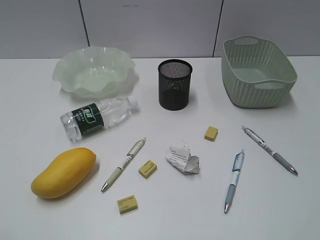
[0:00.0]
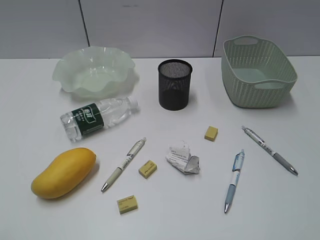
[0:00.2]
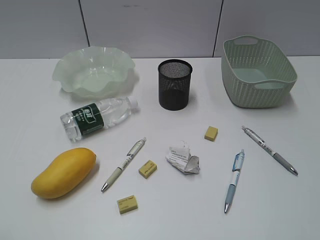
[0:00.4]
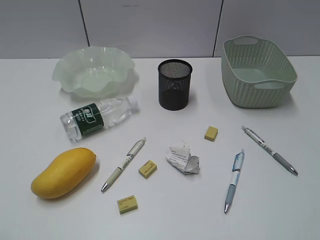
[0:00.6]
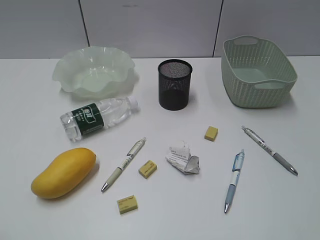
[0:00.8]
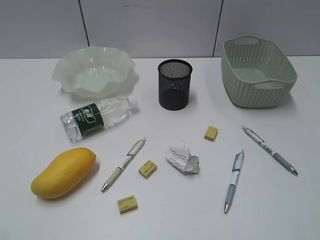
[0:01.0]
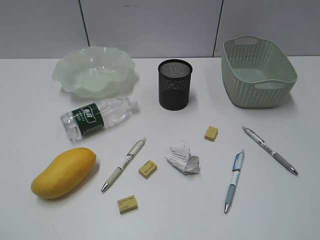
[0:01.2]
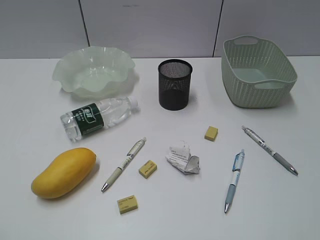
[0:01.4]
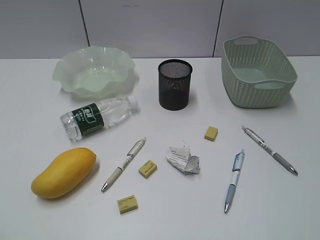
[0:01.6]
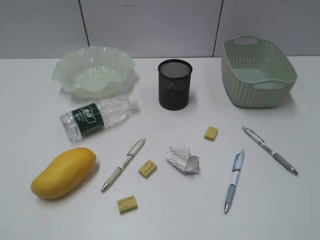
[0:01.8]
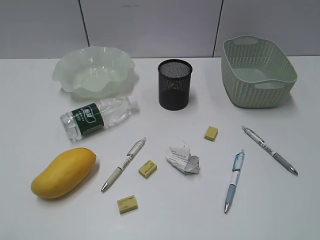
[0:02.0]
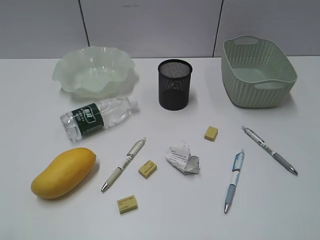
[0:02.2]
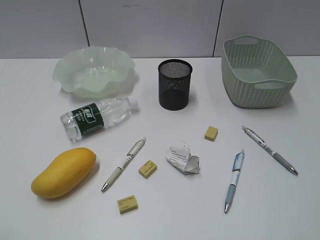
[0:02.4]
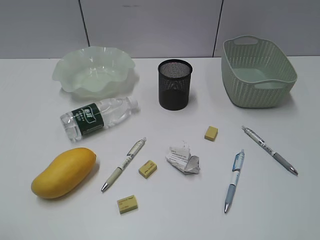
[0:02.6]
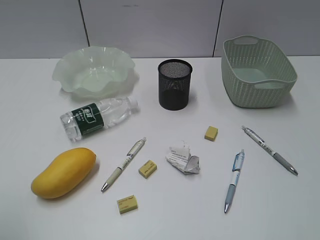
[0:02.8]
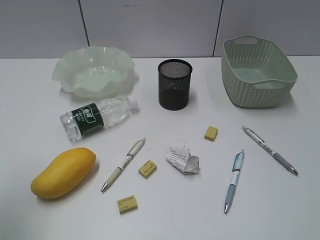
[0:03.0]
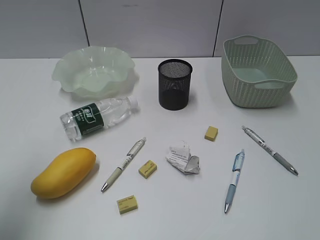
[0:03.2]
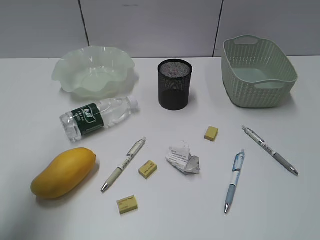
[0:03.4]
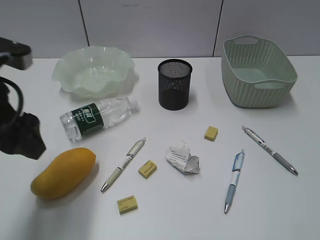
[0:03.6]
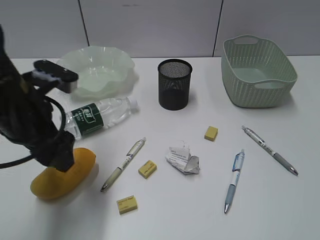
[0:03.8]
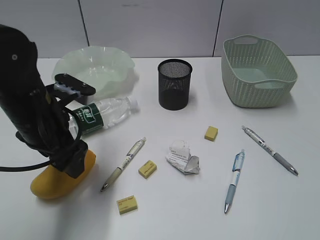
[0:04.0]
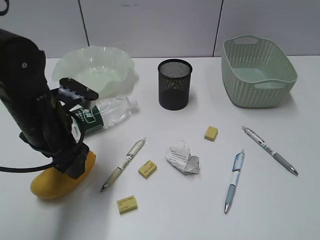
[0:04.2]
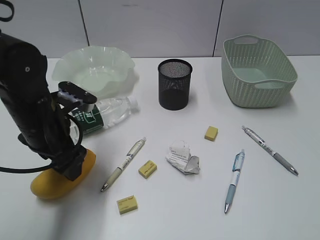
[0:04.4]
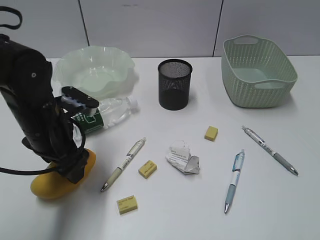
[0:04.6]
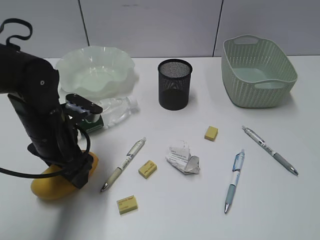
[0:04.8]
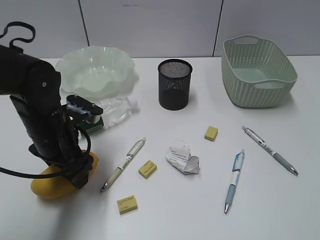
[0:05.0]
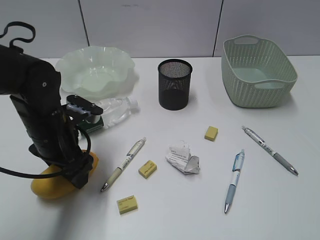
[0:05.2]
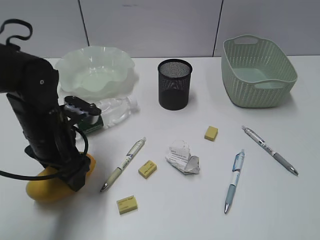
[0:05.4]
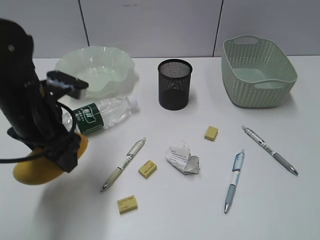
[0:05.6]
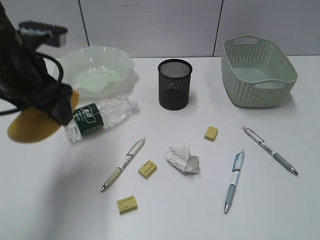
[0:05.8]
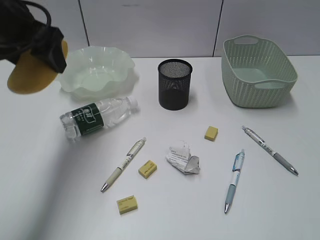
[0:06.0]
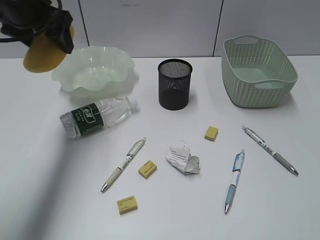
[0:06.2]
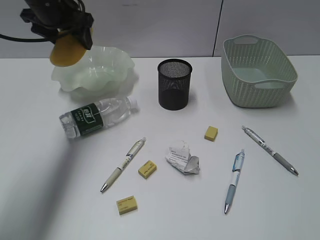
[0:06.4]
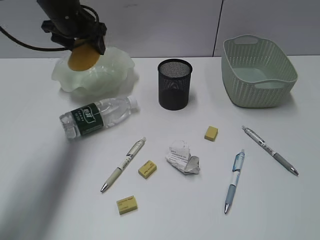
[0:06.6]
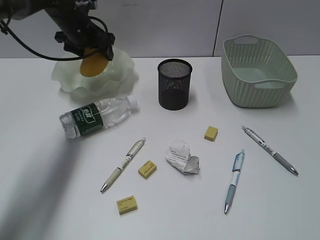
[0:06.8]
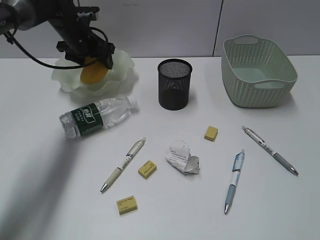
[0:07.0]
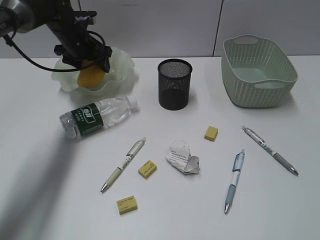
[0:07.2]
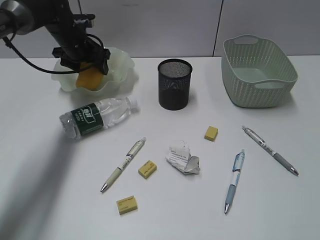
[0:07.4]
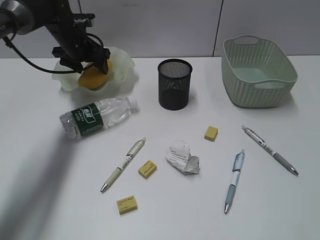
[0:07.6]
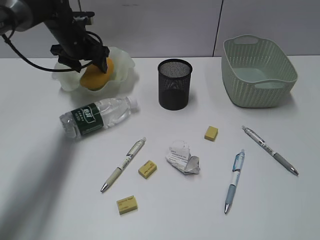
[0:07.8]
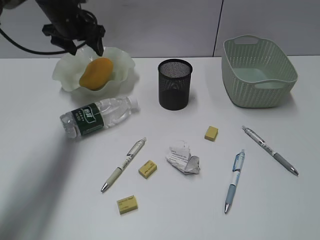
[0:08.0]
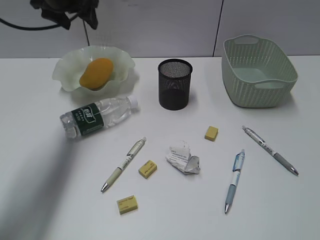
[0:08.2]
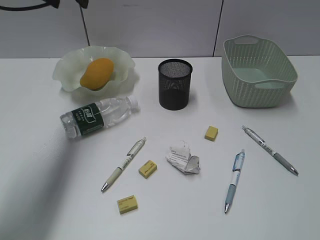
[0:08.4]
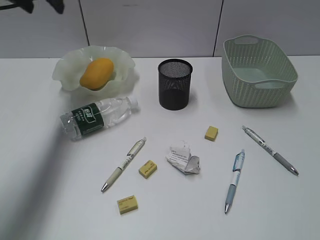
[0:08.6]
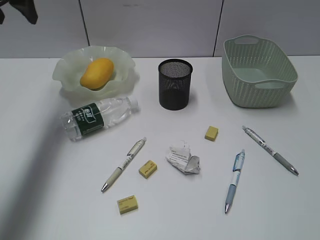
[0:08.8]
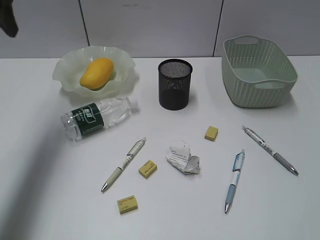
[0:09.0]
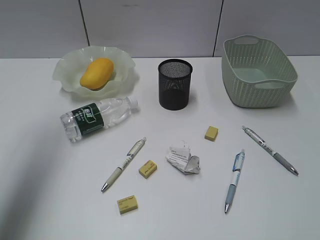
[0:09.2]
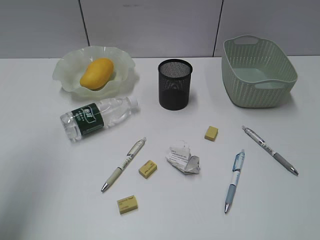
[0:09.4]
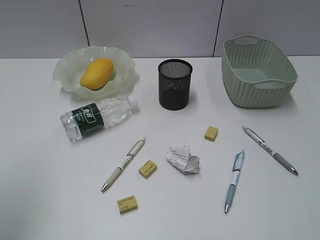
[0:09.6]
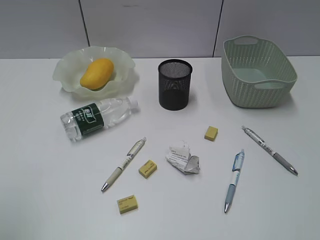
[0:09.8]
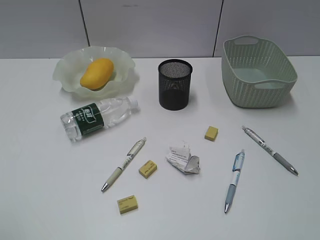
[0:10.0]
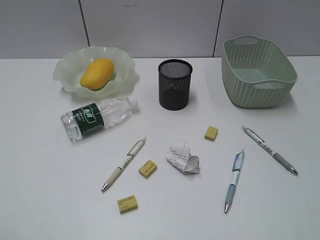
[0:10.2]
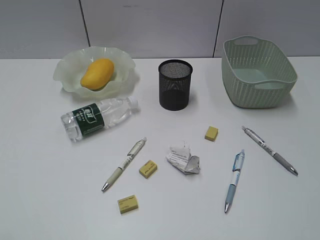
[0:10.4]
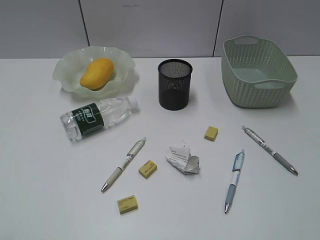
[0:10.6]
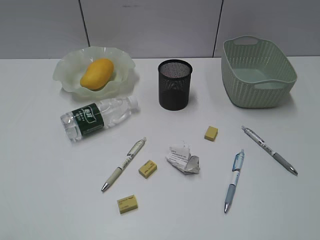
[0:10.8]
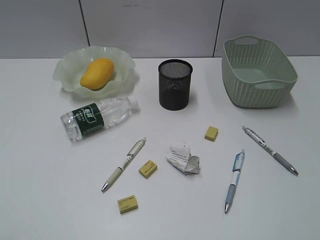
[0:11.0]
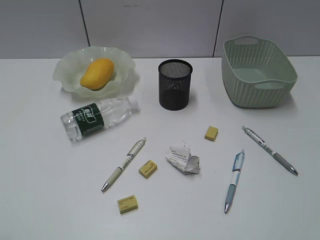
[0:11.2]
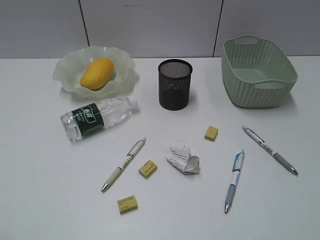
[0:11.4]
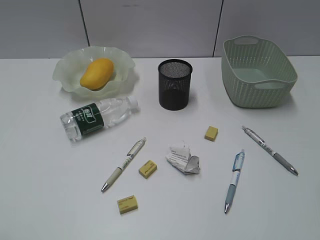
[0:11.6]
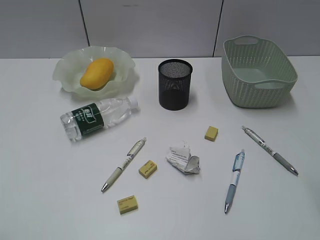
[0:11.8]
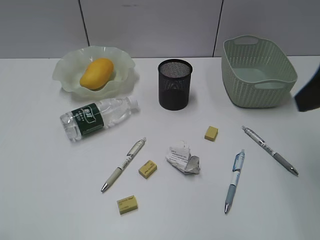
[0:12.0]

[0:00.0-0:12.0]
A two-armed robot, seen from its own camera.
Step, 0:03.6 to 0:05.2: Grasp the mango with left gripper.
Step, 0:05.4 to 0:08.0: Place the mango in the plate with left gripper.
0:01.6 to 0:03.0: The left gripper is displaced forward by some 15 cm, and opens its fingers.
0:03.0 to 0:04.4: The left gripper heads downward, forward and to the right, covering some 25 cm.
0:04.4 to 0:06.0: The left gripper is displaced upward and forward by roughly 15 cm.
0:06.0 to 0:07.6: The left gripper goes roughly 25 cm forward and downward.
0:07.6 to 0:09.0: The left gripper moves upward, backward and to the left, roughly 25 cm.
0:09.0 to 0:10.4: The left gripper heads backward, covering roughly 40 cm.
0:10.4 to 0:12.0: The right gripper shifts approximately 20 cm forward, and opens up.

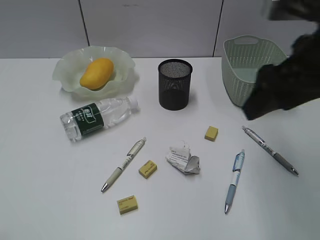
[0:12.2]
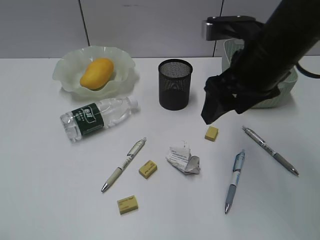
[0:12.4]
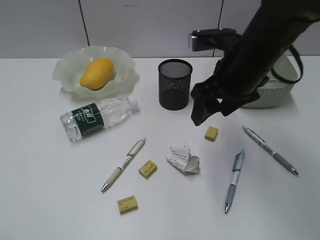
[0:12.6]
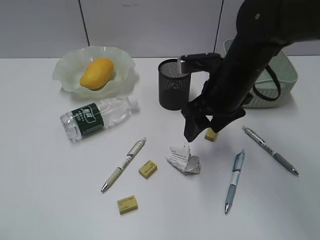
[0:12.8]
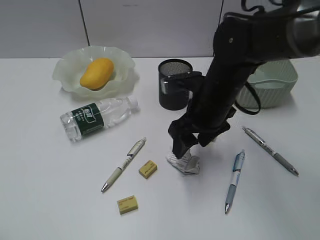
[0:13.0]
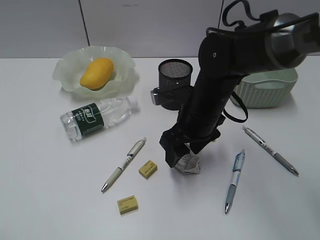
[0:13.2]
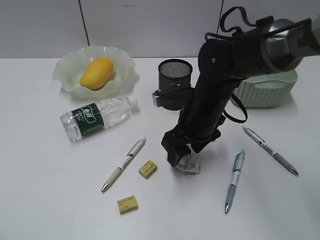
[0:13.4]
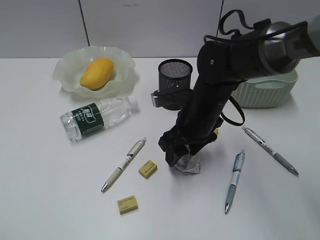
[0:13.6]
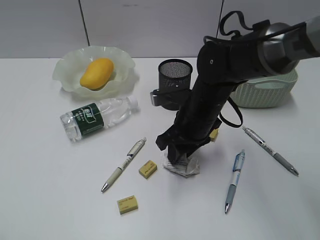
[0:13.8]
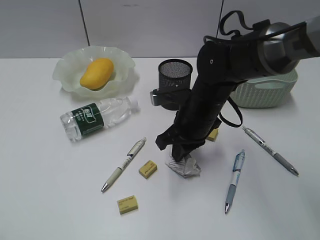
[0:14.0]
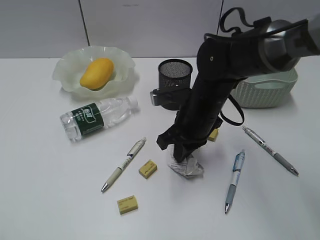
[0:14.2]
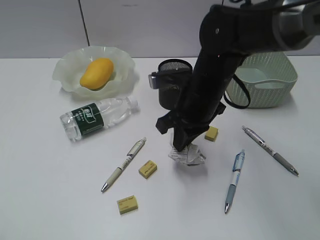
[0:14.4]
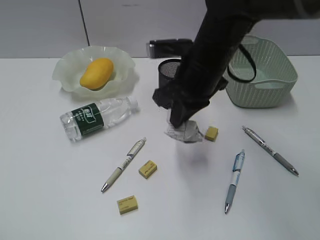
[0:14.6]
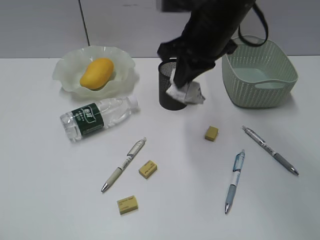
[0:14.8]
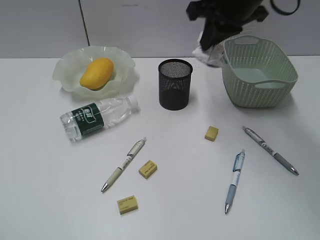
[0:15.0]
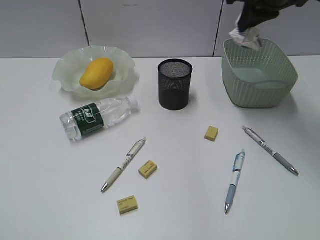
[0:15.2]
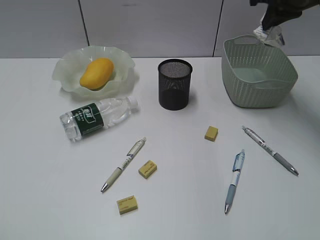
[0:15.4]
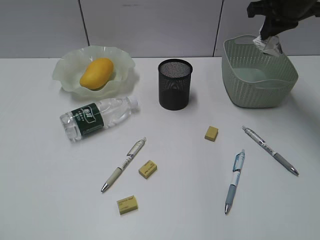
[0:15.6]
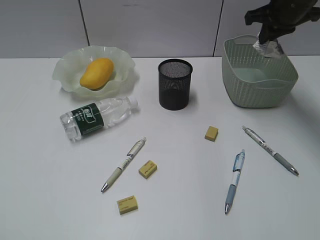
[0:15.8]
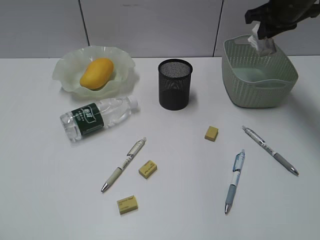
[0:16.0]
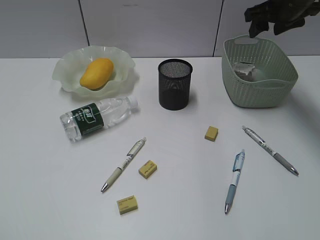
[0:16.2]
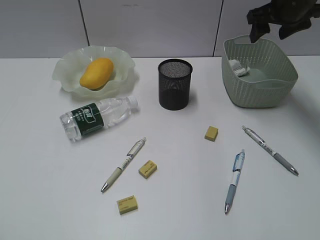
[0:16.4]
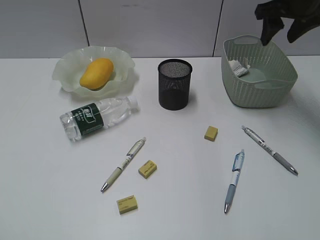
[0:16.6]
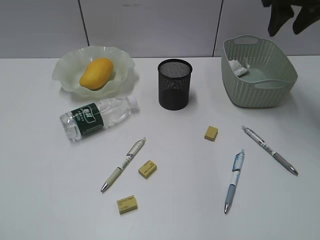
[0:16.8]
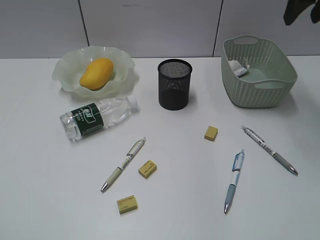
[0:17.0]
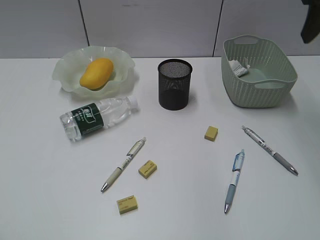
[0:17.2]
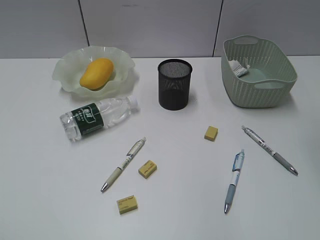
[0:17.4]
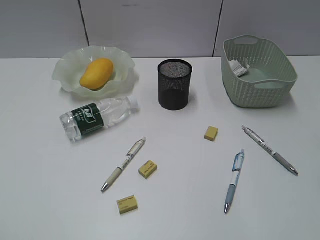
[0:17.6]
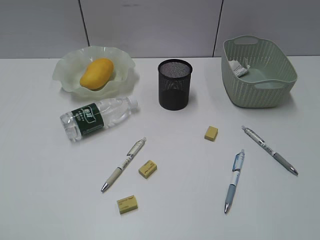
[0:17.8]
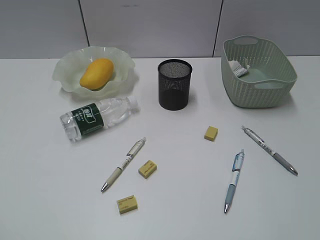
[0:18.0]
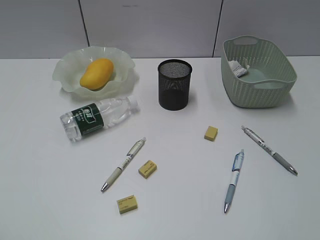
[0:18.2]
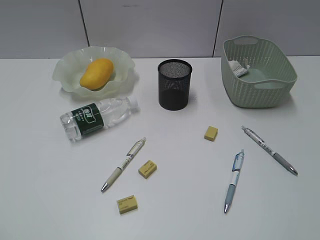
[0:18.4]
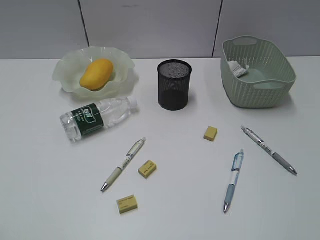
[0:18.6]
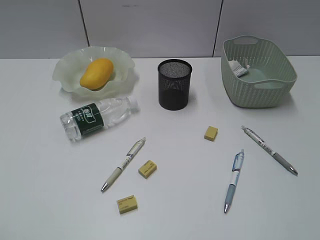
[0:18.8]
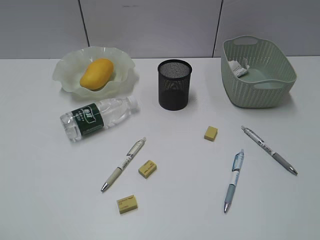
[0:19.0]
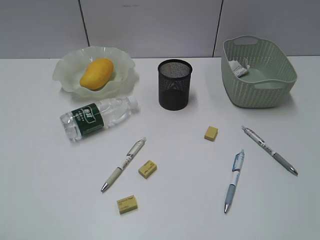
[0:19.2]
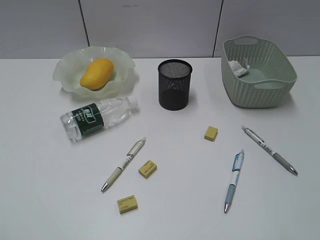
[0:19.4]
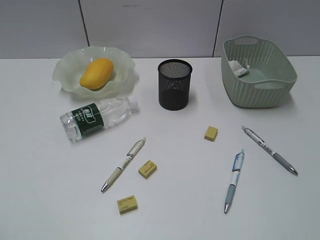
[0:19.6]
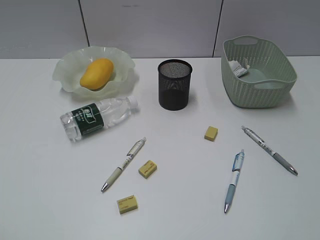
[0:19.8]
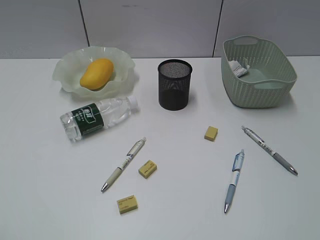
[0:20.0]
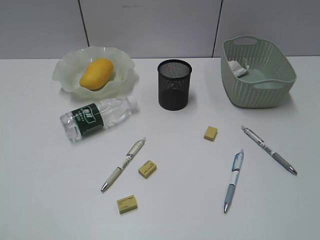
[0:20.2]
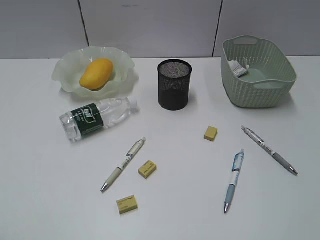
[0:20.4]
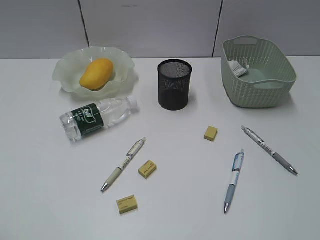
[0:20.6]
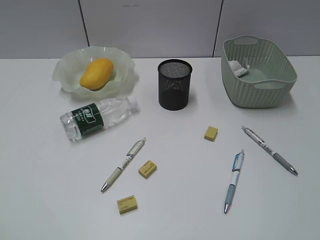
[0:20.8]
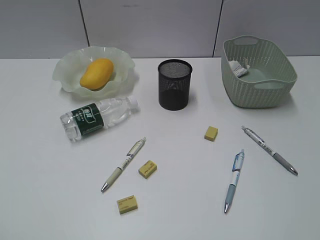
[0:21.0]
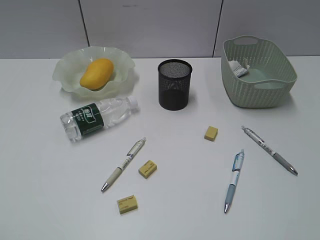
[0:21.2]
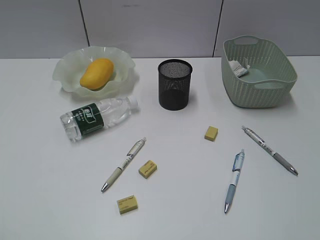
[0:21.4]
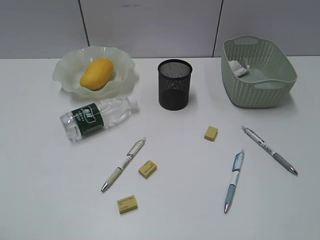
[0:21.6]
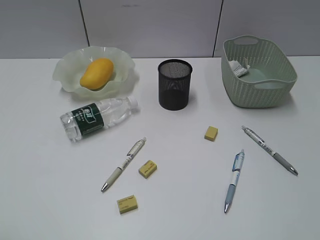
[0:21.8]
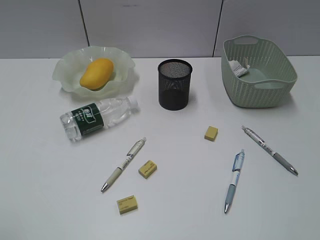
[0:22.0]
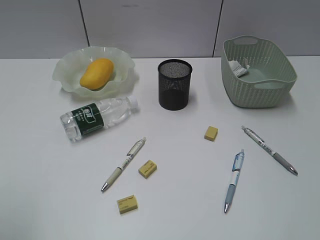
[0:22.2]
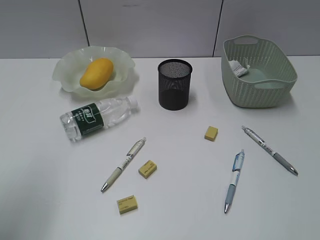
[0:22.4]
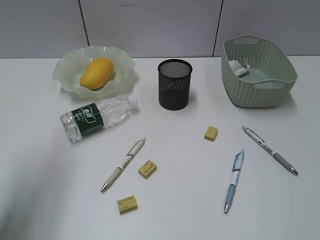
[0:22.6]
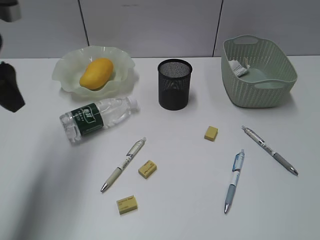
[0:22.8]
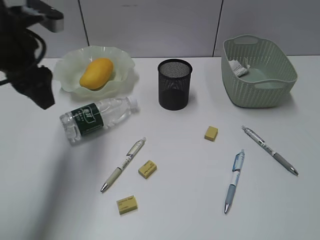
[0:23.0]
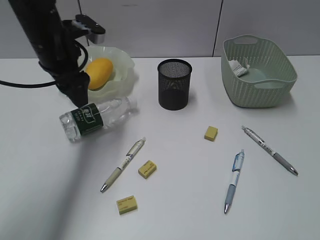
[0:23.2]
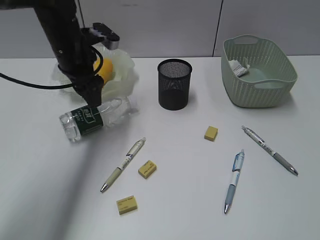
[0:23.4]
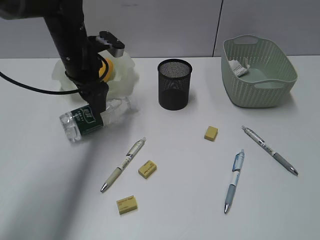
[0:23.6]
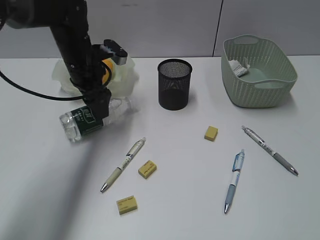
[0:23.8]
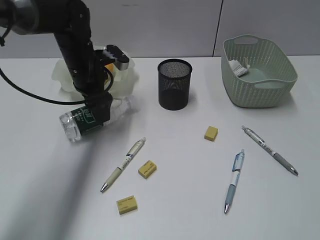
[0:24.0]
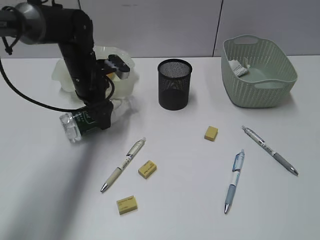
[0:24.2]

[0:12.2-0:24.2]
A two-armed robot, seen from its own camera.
Step, 0:14.2 to 0:16.2: Place the waste paper in the basket with right gripper.
0:12.2 to 0:13.8: The right gripper travels downward, to the left and forward by about 25 cm, and closes up.
0:13.8 to 0:15.2: The right gripper goes about 25 cm upward, to the right and forward, and closes its fingers.
0:15.2 to 0:16.6: The right gripper moves to the right, roughly 5 cm, and opens up.
0:16.6 to 0:18.2: The right gripper heads backward, covering some 40 cm.
0:21.2 to 0:22.6: The left gripper travels forward by roughly 20 cm, and opens up.
0:22.6 to 0:24.2: The left gripper heads forward, downward and to the right, covering roughly 35 cm.
